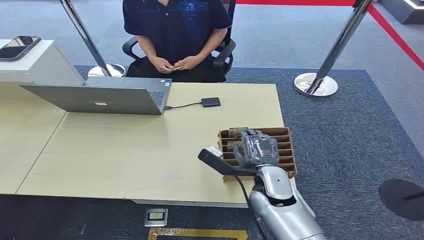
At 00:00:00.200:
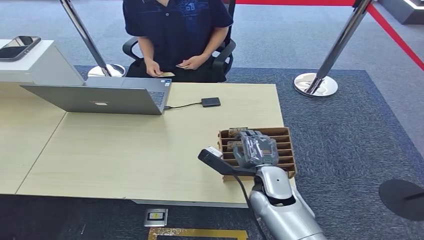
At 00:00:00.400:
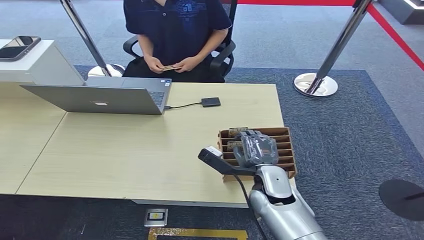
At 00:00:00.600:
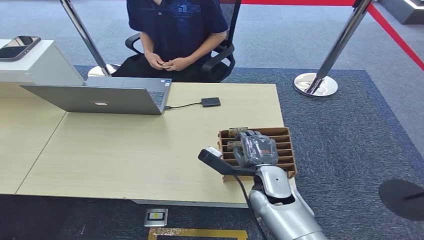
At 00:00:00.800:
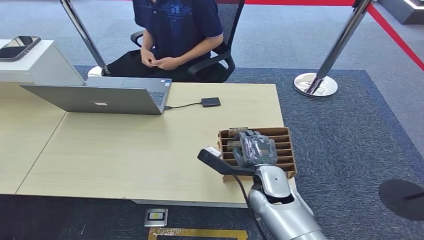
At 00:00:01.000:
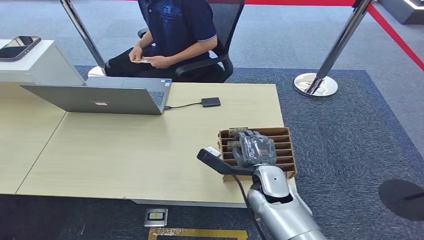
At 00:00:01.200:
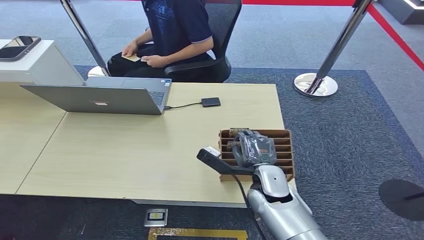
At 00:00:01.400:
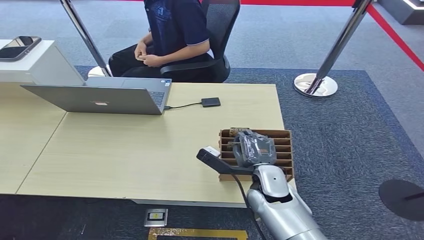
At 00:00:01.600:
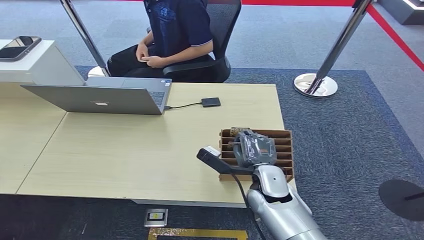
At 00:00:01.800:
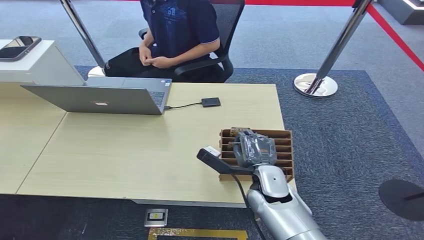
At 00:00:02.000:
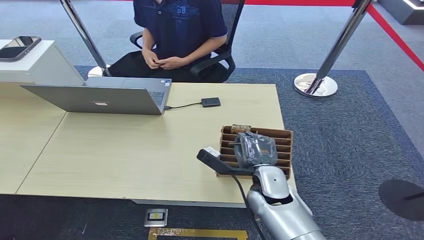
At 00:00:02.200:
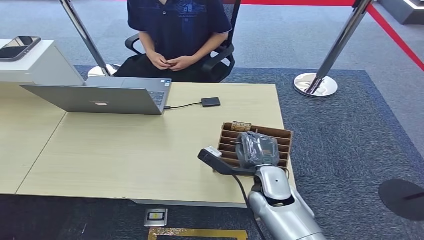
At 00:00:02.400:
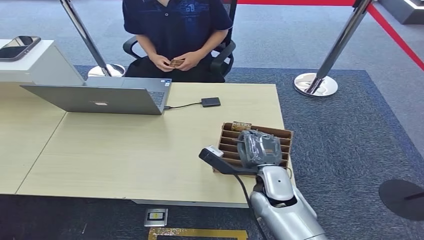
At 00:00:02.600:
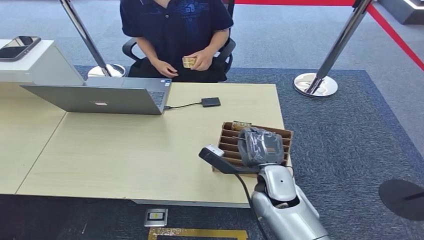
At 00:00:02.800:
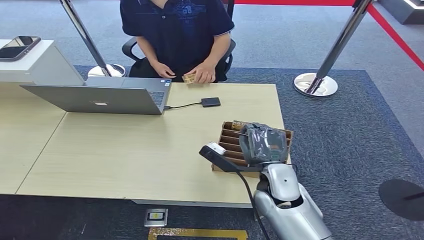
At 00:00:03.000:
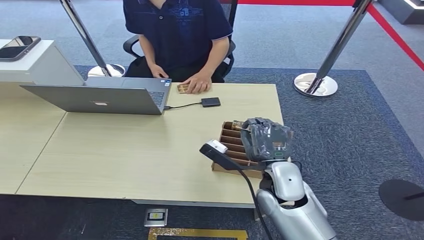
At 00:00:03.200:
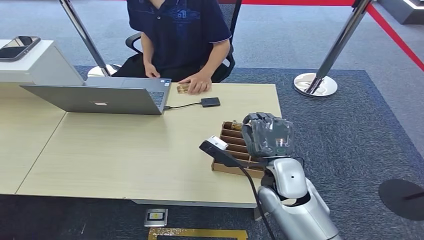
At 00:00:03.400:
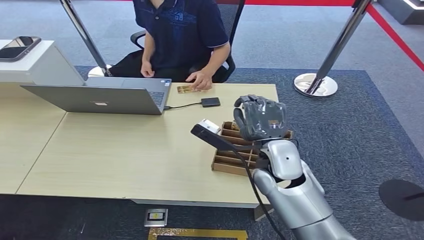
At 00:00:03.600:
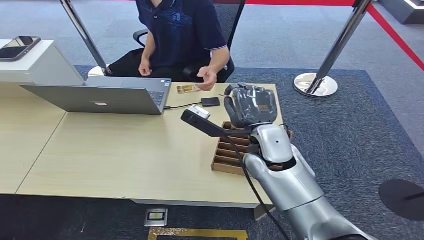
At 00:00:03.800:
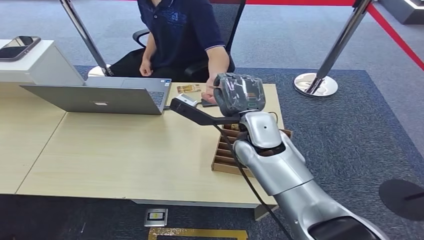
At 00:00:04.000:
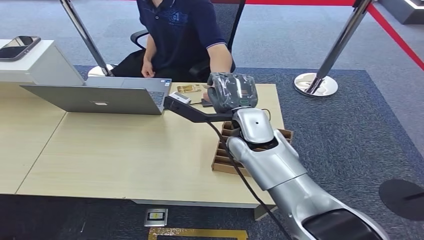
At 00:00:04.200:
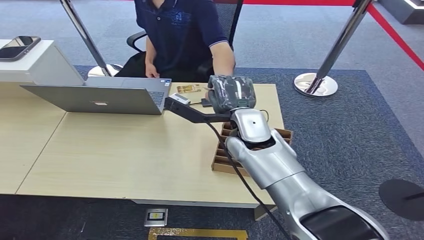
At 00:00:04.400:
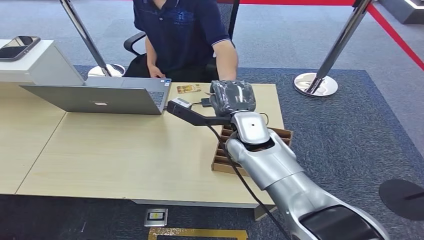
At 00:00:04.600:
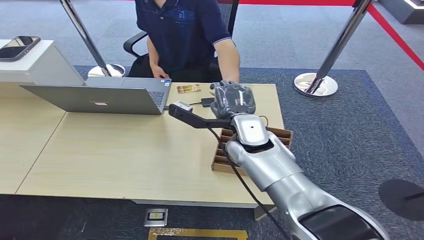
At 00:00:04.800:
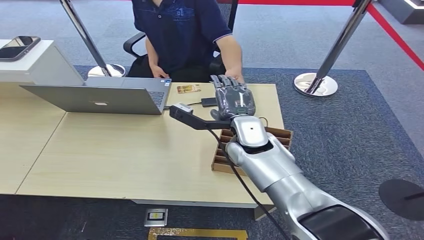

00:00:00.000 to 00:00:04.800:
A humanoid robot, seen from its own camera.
Task of the whole recording: Pick up the card and hand it over to the target person.
Step, 00:00:00.000 to 00:00:03.000: Pick up the key card from the card box.
Step, 00:00:03.400 to 00:00:04.800: Hand the key card to the target.
00:00:01.600 to 00:00:03.200: The right hand goes roughly 10 cm upward.
00:00:03.200 to 00:00:04.800: The right hand travels forward by about 5 cm.
